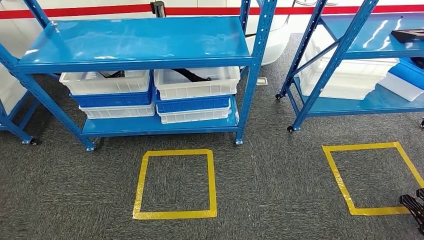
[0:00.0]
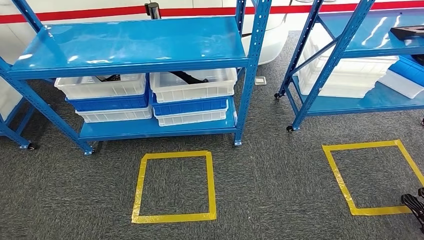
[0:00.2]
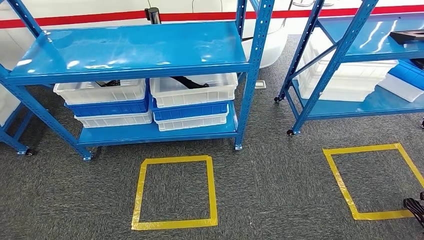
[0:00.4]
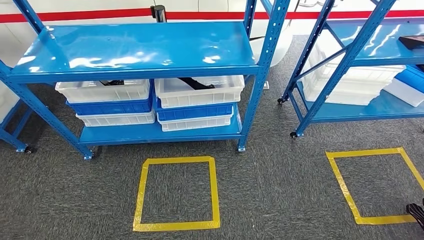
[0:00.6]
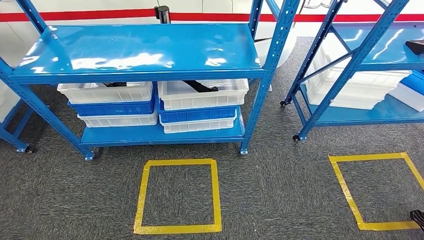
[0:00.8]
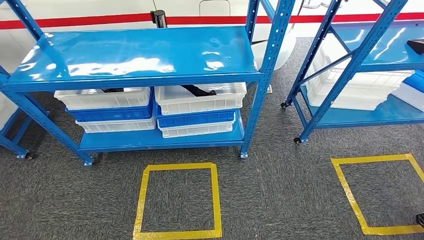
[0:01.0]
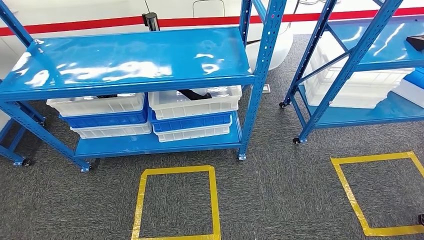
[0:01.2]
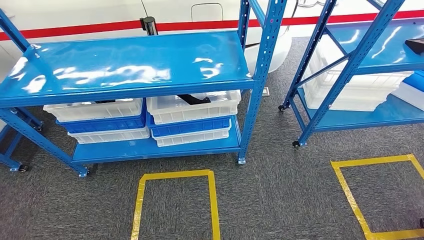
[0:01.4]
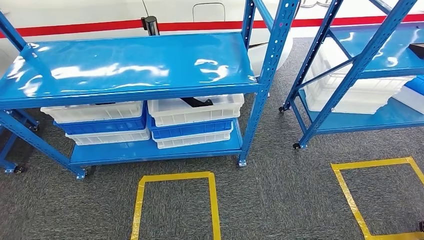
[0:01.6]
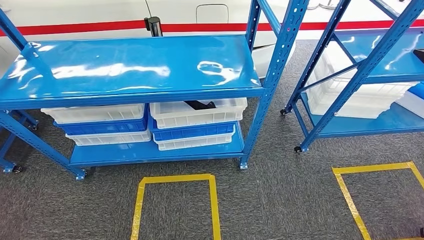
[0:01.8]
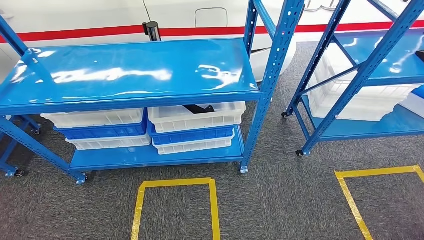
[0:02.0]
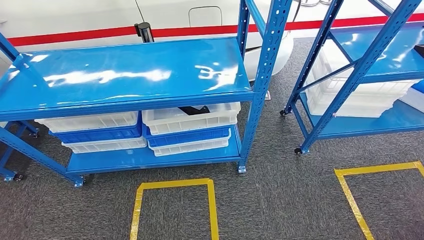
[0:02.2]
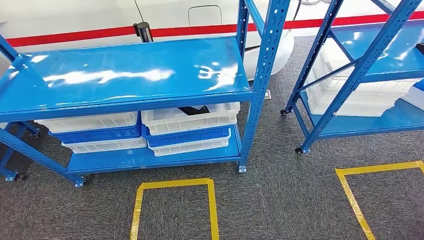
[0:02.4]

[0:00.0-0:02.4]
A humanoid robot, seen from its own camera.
Step, 0:00.0 to 0:02.2: Move to the initial position of the shelf.

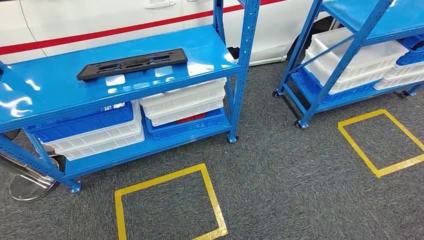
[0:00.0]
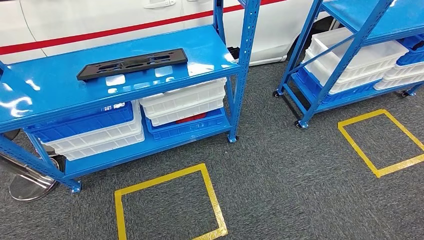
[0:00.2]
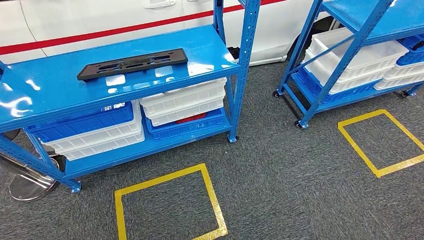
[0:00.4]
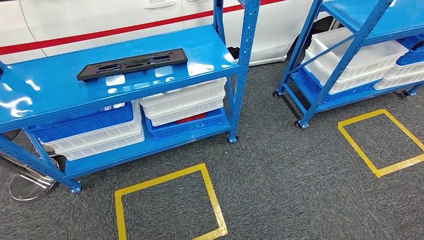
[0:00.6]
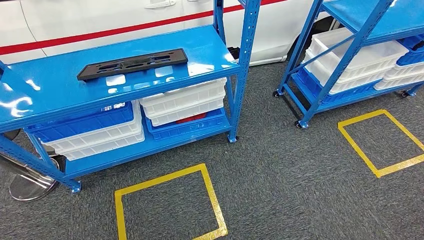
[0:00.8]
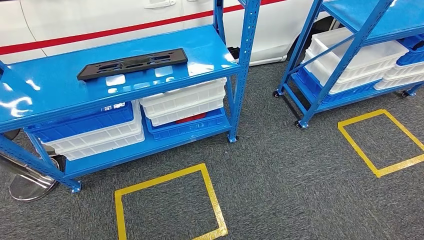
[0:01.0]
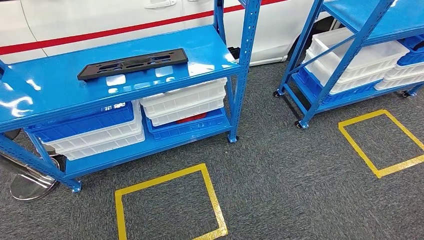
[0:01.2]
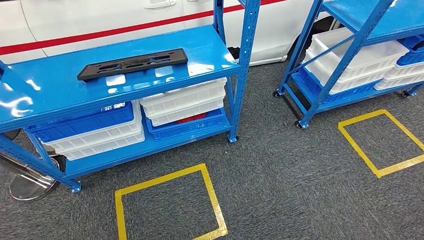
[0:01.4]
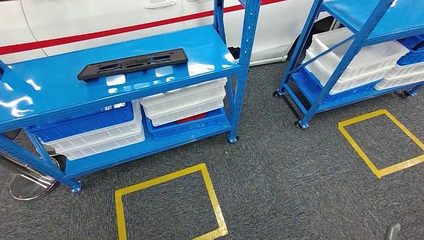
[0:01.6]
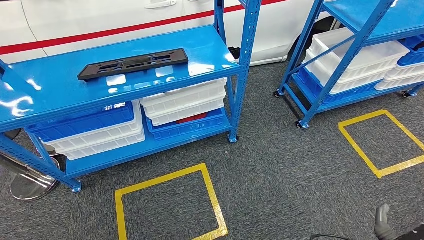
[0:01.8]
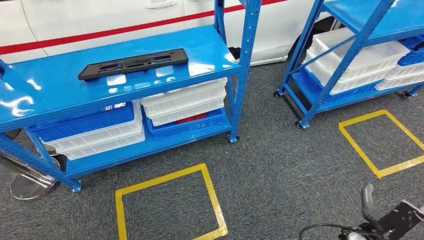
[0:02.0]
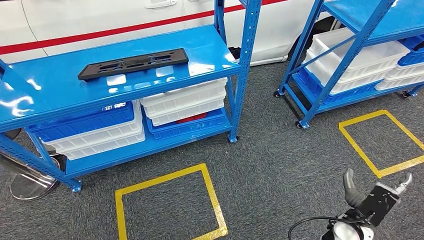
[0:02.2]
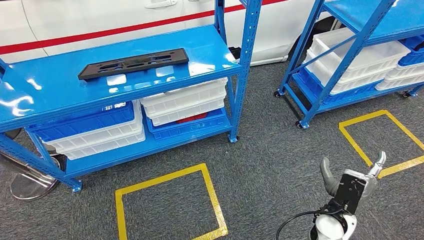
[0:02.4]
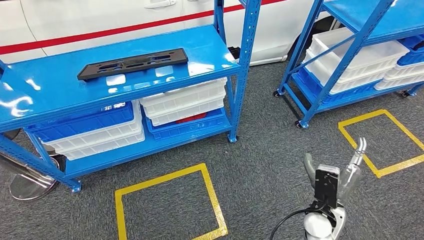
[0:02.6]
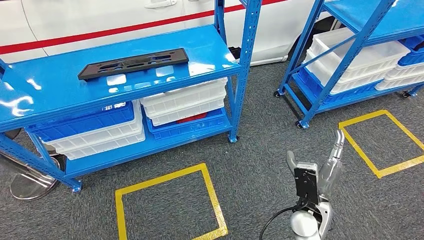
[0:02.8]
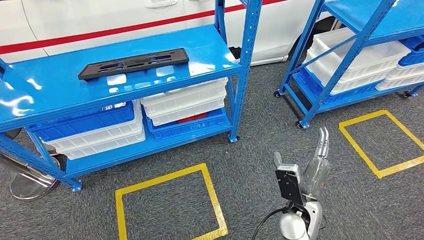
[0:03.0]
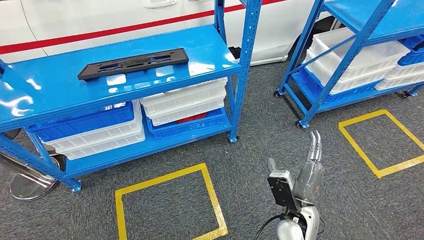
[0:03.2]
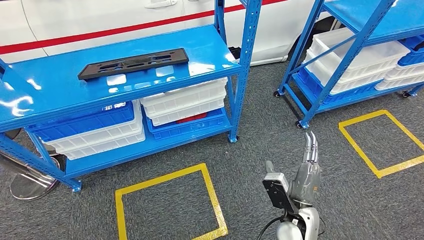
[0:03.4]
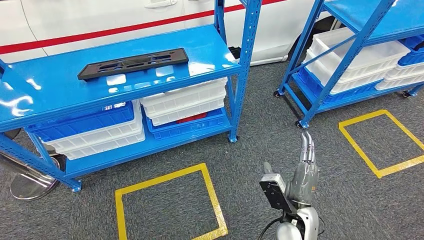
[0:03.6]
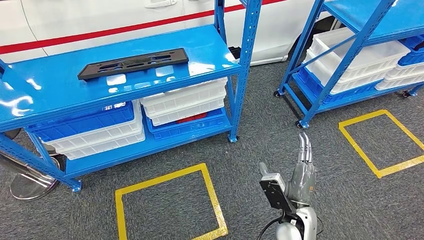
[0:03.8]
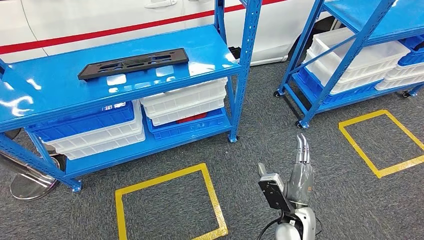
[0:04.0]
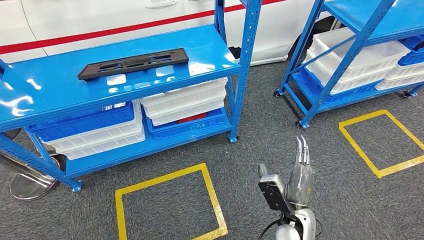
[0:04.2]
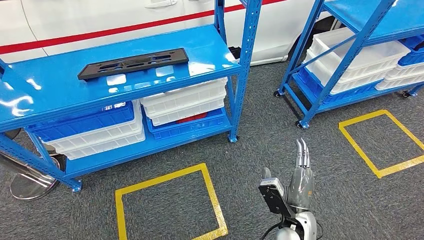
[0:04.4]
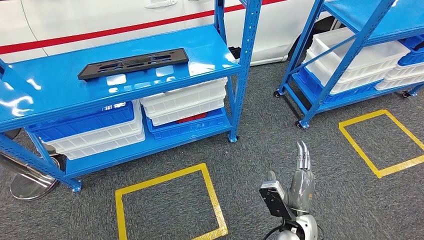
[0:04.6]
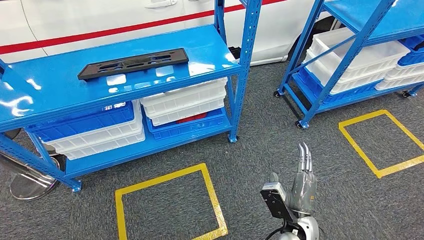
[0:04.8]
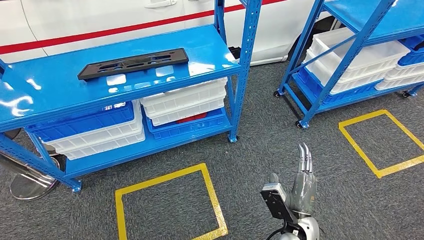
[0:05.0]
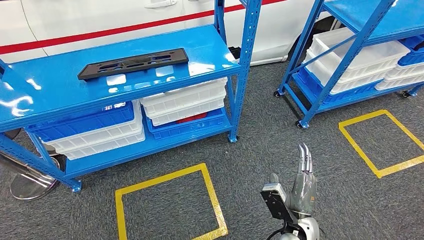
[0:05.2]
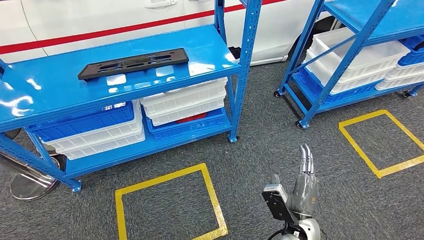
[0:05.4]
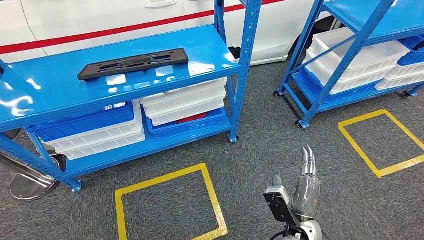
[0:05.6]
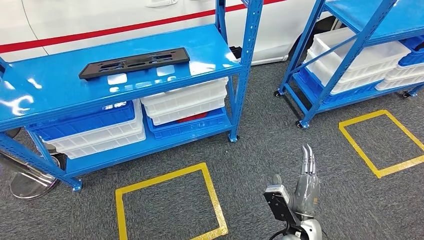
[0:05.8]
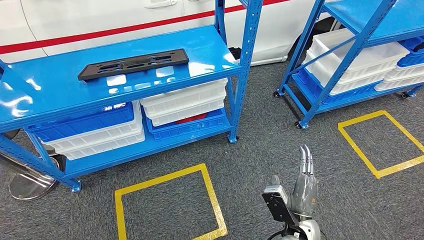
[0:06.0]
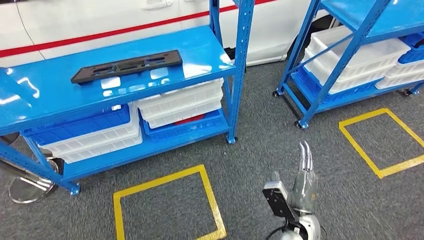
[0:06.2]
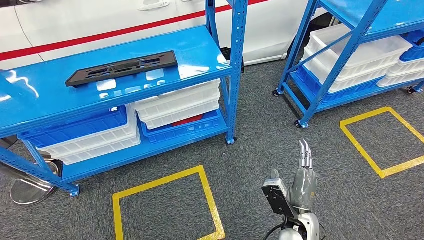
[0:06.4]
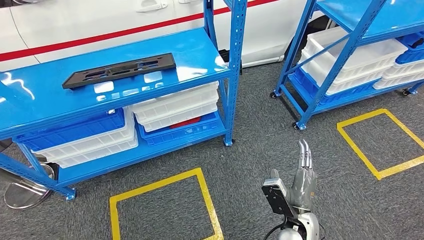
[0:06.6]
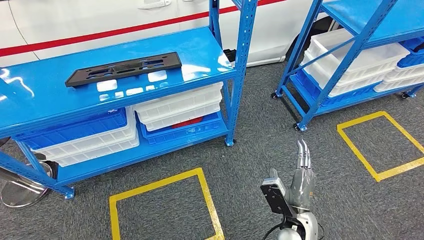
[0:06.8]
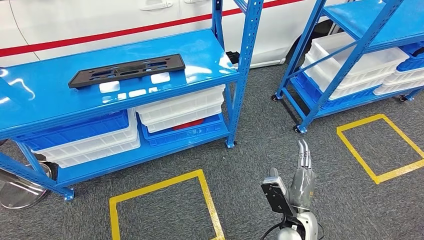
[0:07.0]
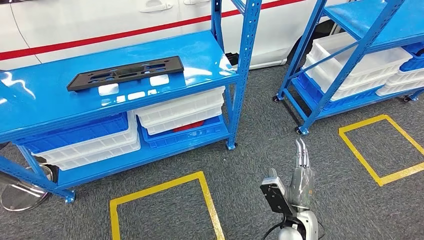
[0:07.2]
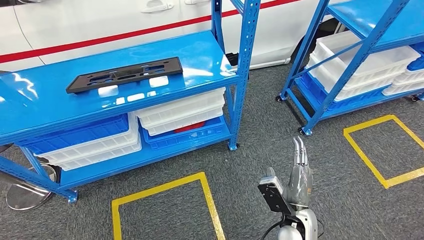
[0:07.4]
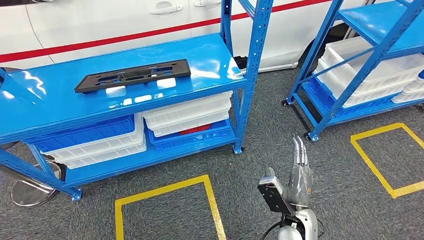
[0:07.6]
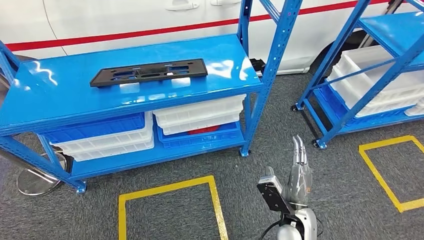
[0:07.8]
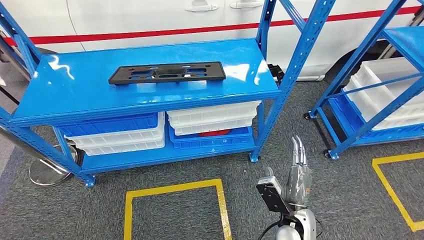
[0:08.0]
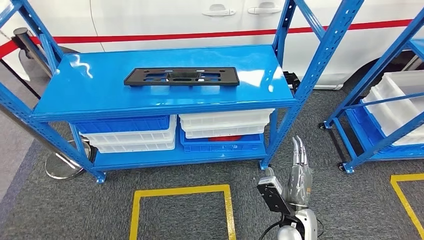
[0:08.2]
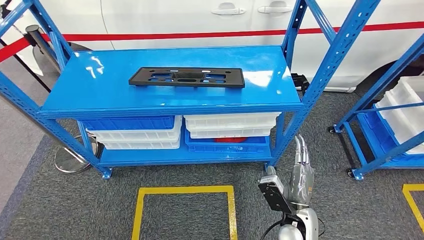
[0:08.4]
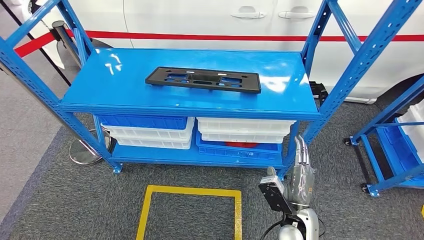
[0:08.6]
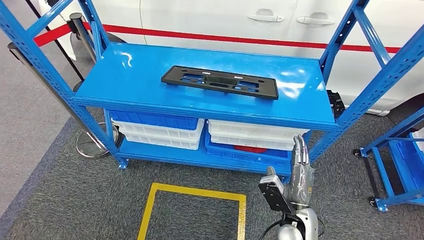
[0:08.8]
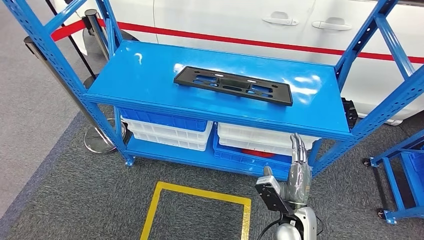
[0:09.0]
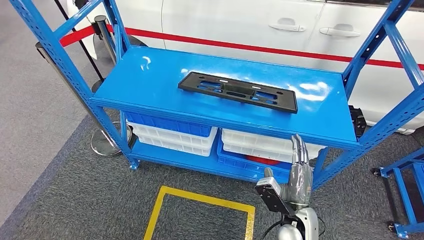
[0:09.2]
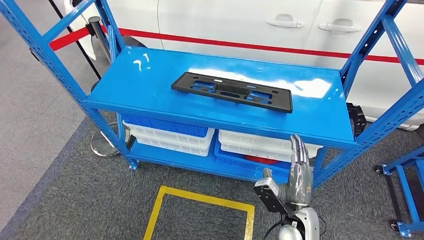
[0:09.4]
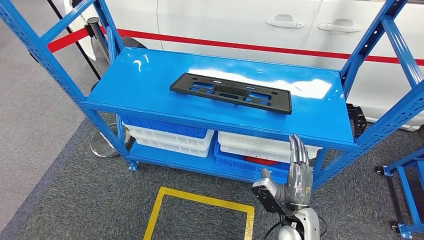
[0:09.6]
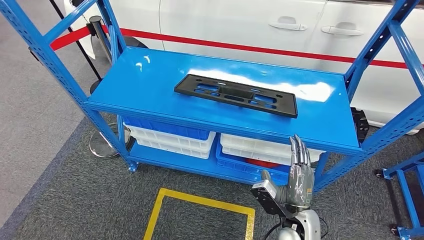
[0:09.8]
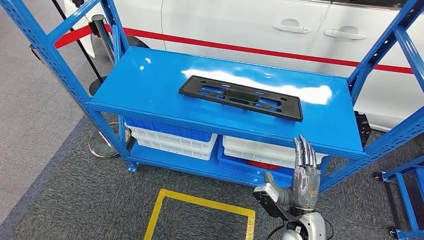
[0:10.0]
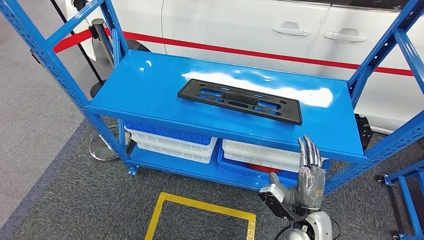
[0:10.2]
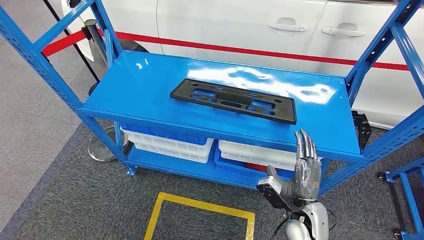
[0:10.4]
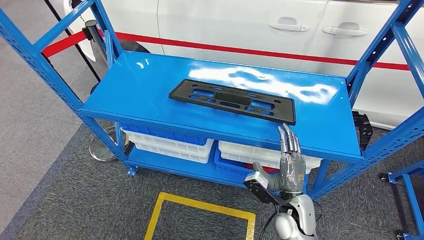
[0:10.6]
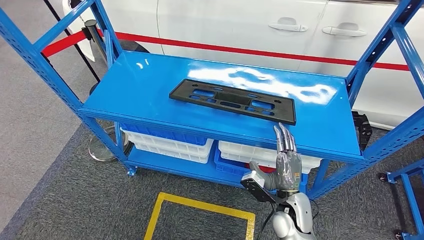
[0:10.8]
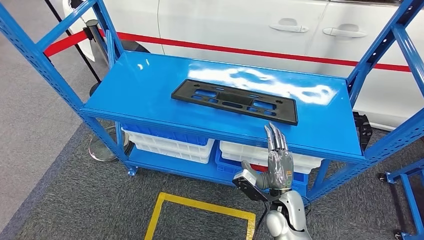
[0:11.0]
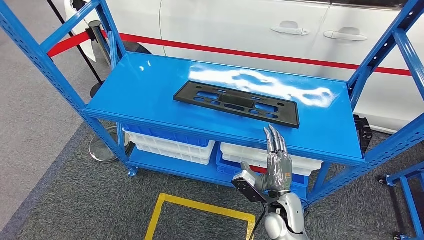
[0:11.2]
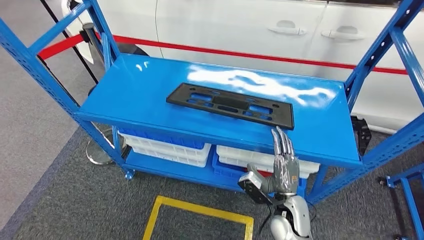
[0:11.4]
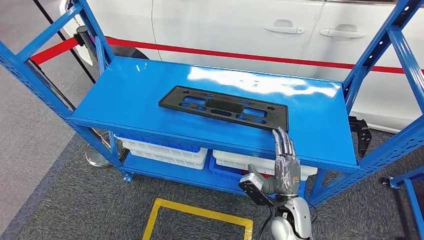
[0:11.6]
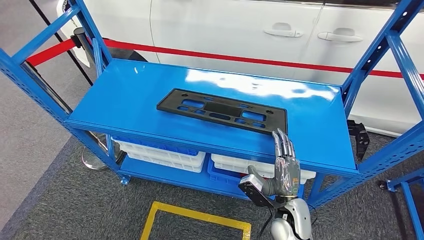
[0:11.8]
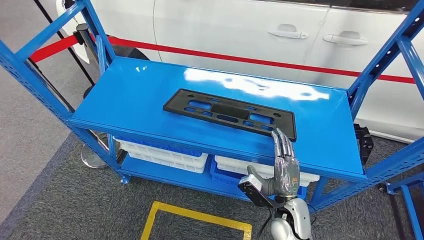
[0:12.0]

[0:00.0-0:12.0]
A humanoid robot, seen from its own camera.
0:01.6 to 0:03.0: The right hand shifts roughly 25 cm to the left, upward and forward.
0:03.0 to 0:06.0: The hands move only a little.

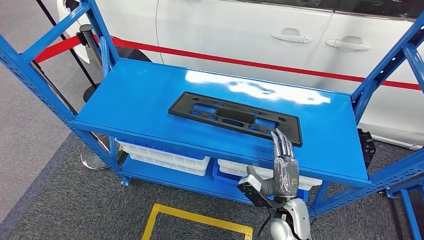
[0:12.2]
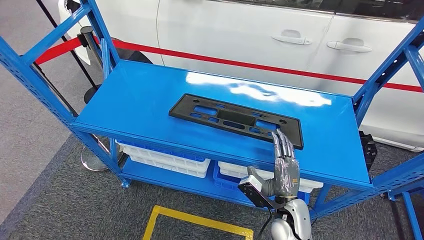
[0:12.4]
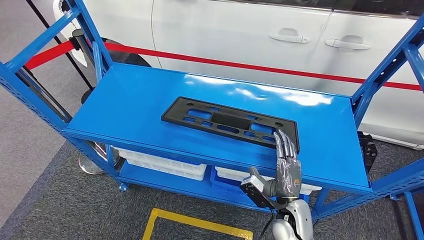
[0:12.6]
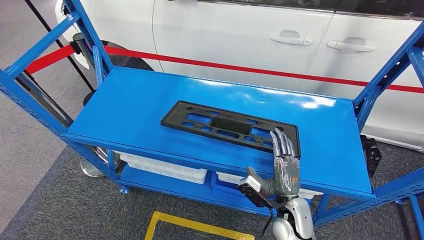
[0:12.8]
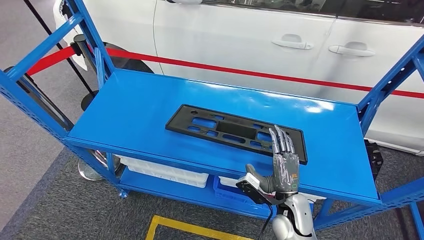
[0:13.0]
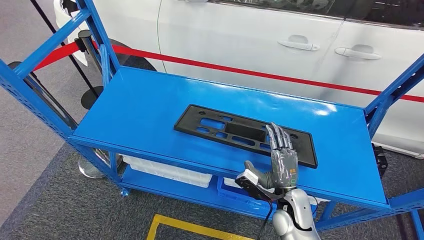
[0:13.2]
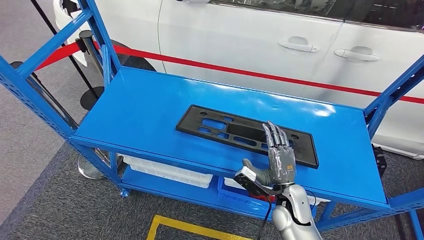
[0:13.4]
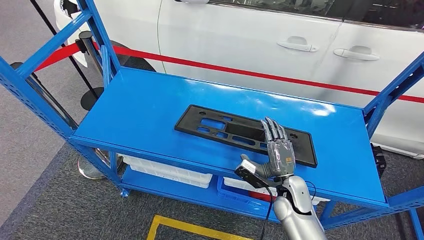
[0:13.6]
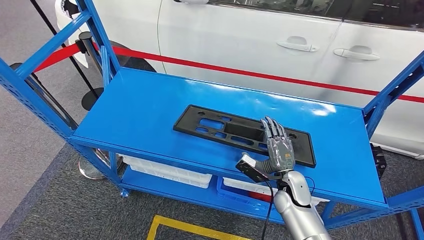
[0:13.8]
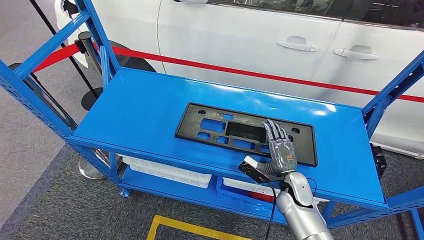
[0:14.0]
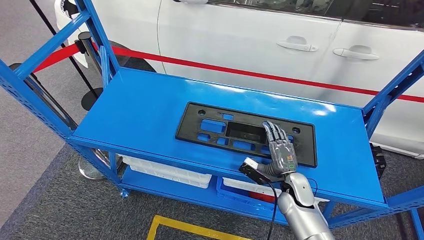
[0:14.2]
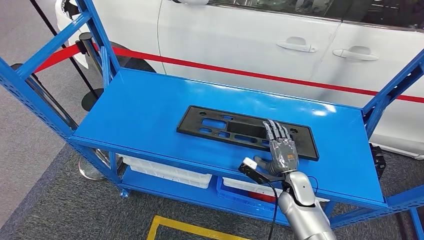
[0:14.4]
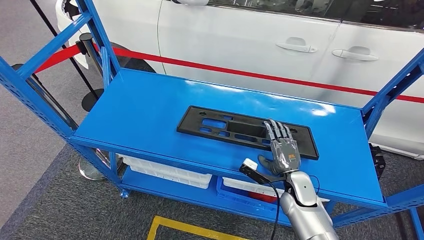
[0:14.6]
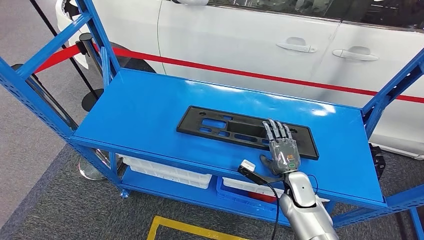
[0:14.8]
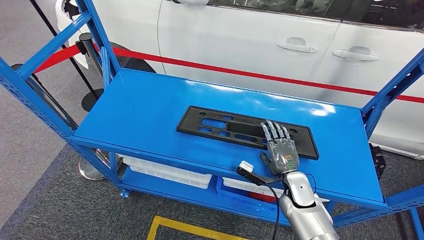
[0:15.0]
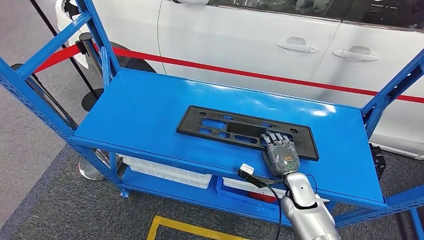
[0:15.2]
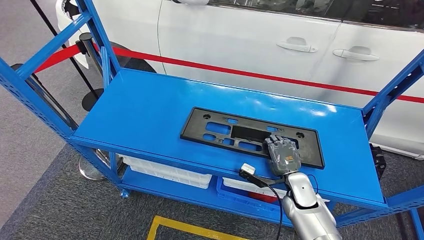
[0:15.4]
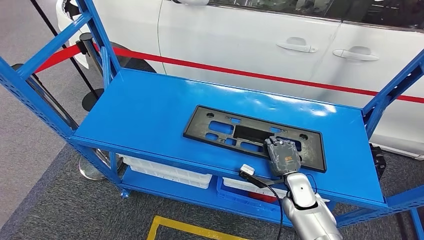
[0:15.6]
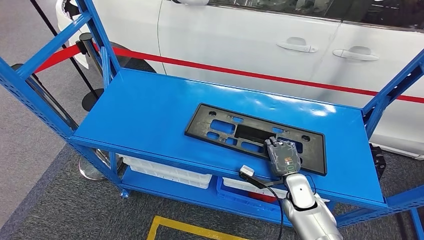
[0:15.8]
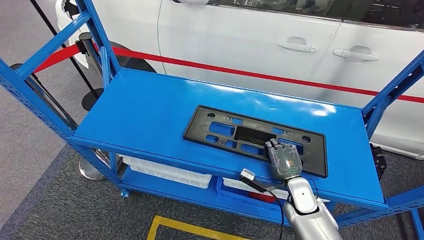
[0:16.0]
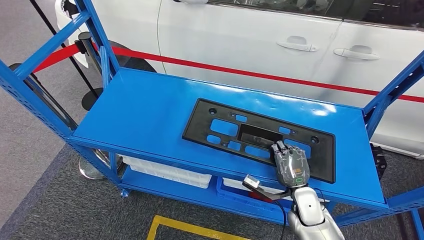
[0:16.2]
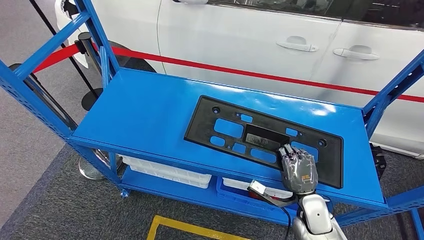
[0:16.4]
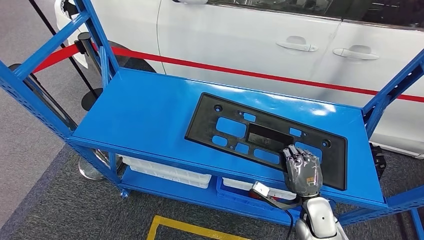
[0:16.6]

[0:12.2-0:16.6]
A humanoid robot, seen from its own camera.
0:15.2 to 0:16.6: The right hand heads backward, covering about 5 cm.
